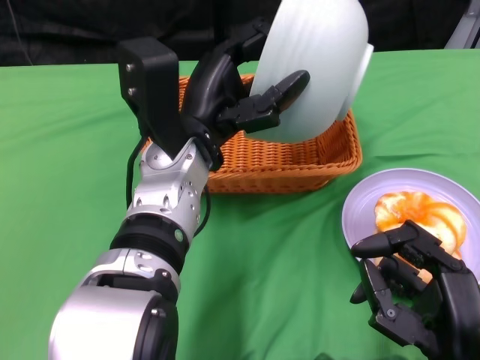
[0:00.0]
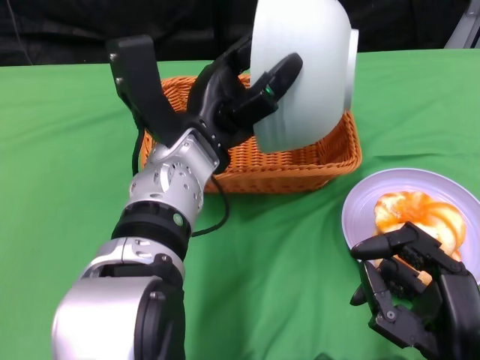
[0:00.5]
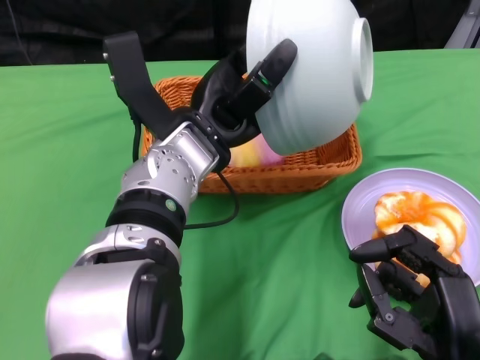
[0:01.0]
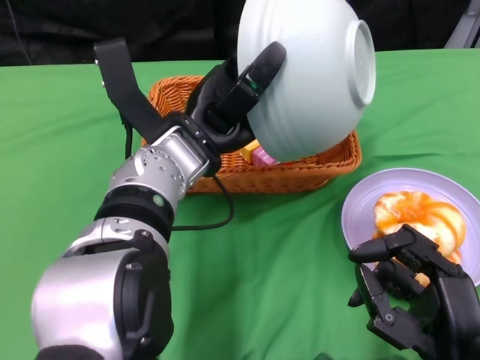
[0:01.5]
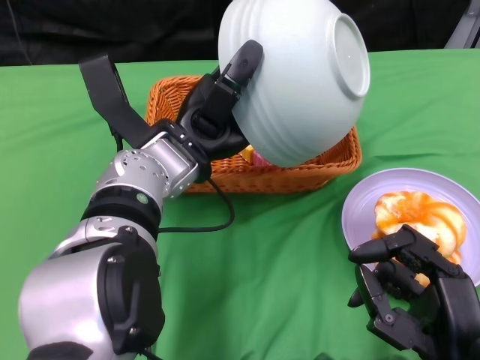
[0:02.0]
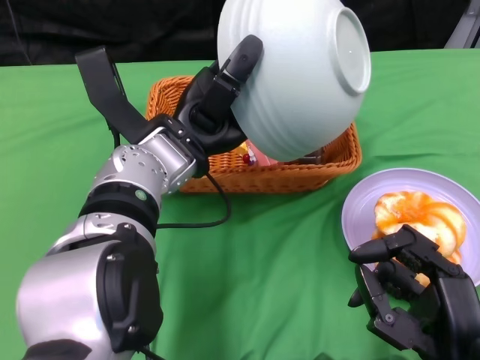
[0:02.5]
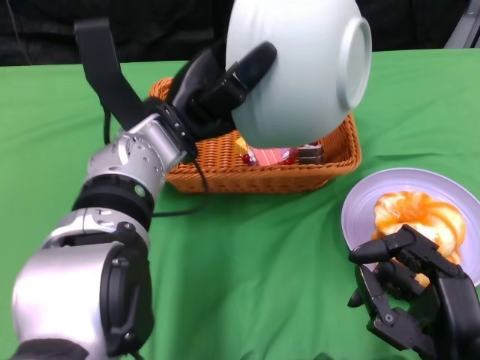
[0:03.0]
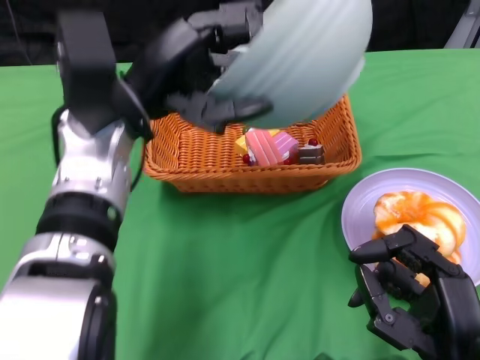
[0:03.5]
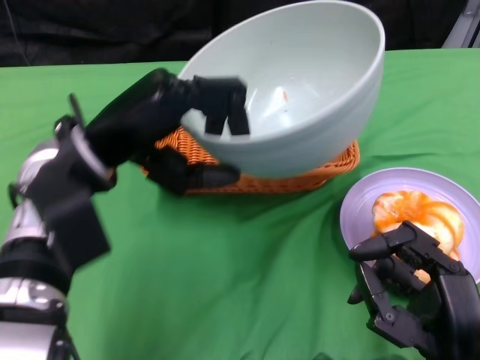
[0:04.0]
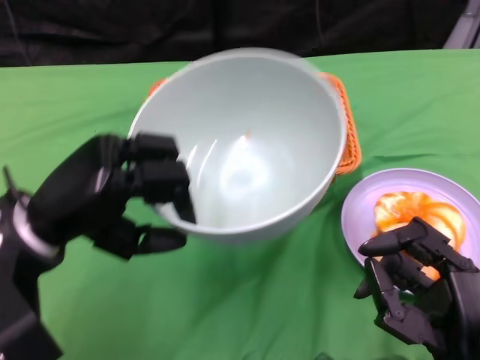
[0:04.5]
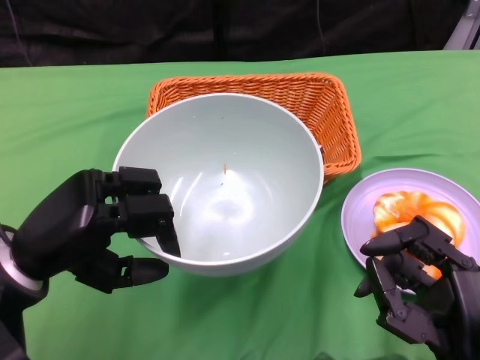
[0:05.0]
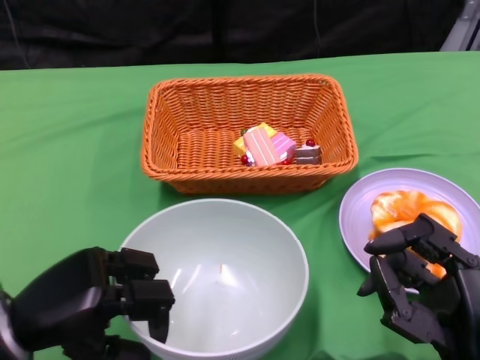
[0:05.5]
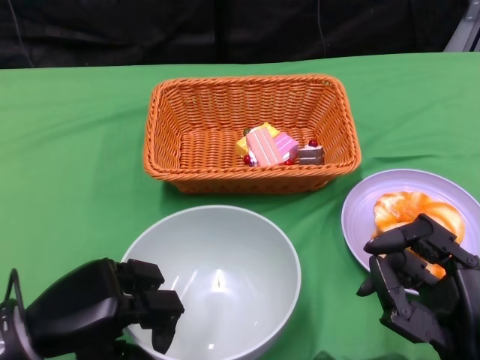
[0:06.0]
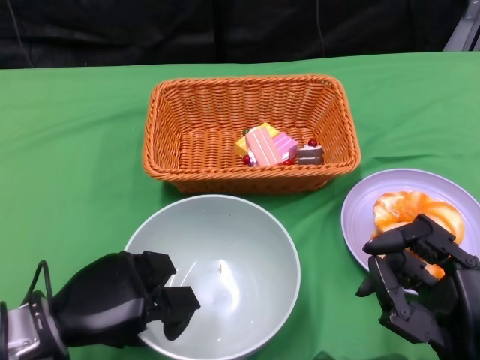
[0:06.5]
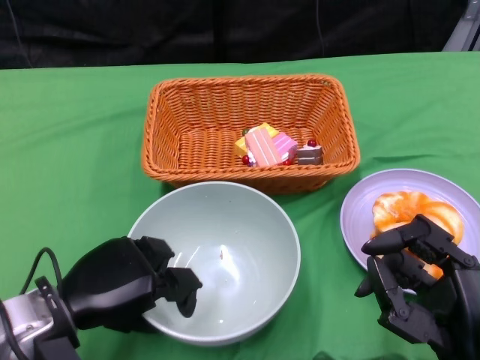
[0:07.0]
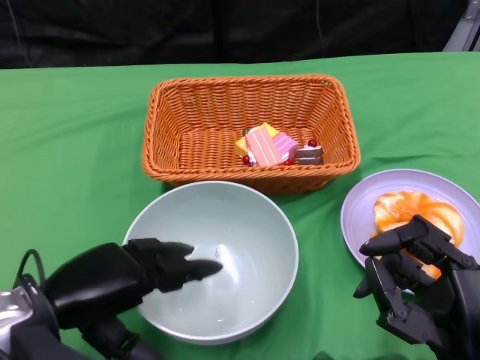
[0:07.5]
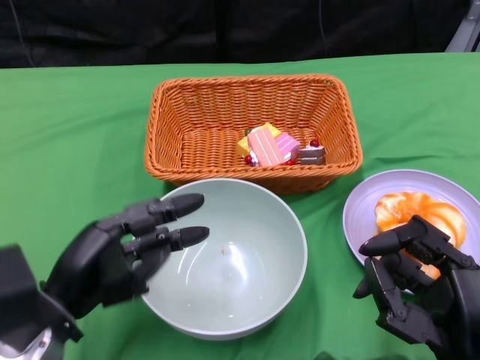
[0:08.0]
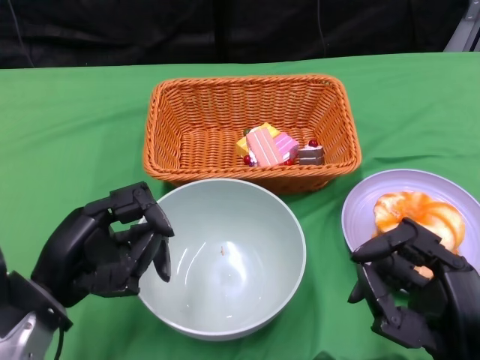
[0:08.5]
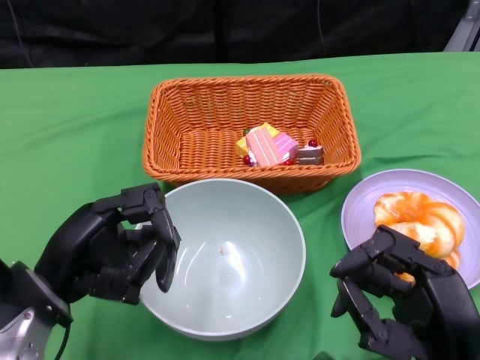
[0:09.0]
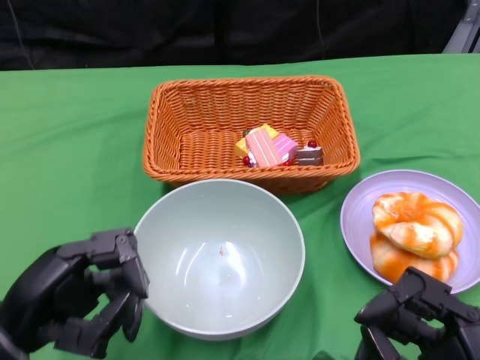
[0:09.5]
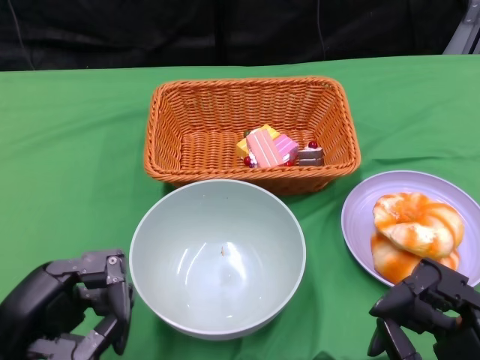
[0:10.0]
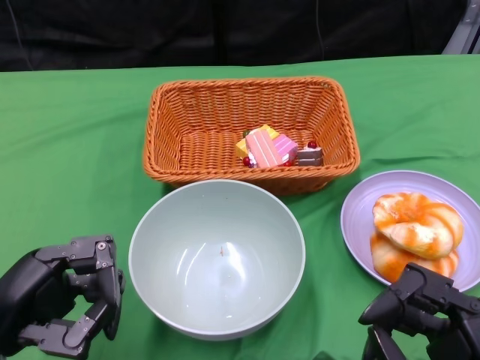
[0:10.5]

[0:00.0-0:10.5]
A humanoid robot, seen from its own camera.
Step, 0:00.0 to 0:03.0: Pour the cake into the basket with the left gripper.
Step, 0:04.0 to 0:08.0: Place the bowl on the table with the left gripper.
0:02.0 to 0:04.0: The left hand is displaced to the left by approximately 10 cm.
0:04.0 to 0:06.5: The left hand is displaced downward and backward by some 15 cm.
0:08.5 to 0:10.5: The left hand shifts by some 5 cm.

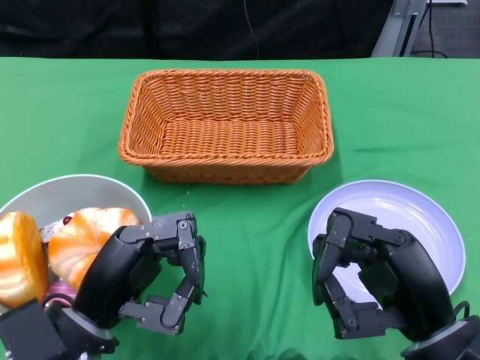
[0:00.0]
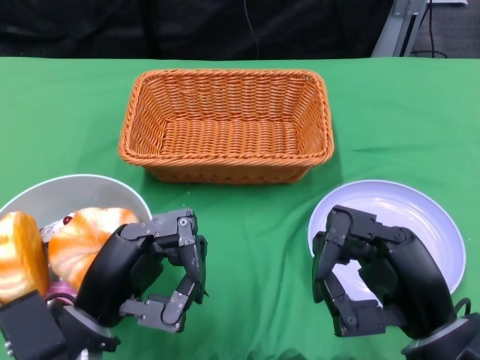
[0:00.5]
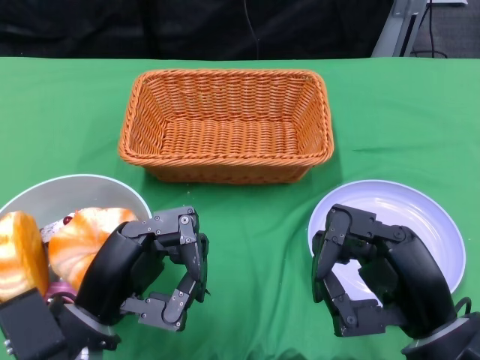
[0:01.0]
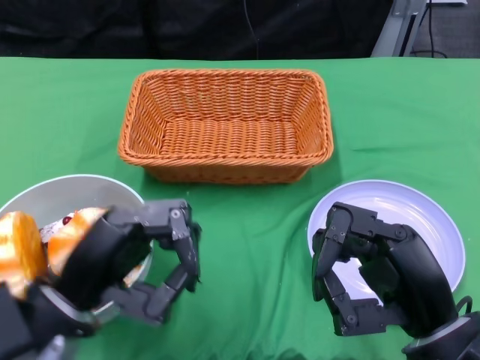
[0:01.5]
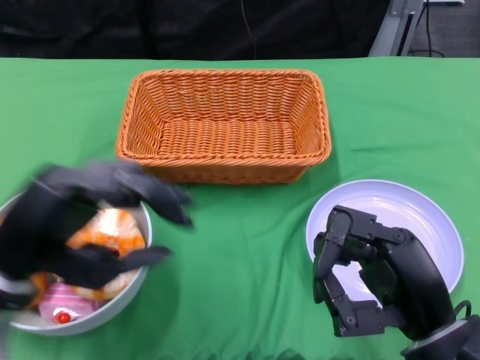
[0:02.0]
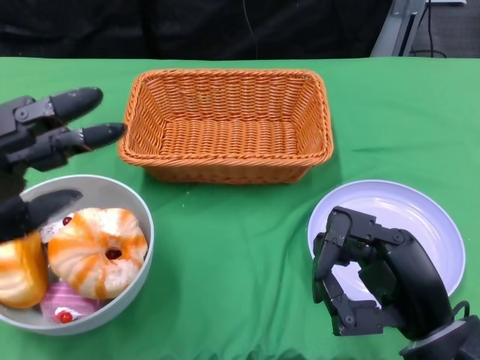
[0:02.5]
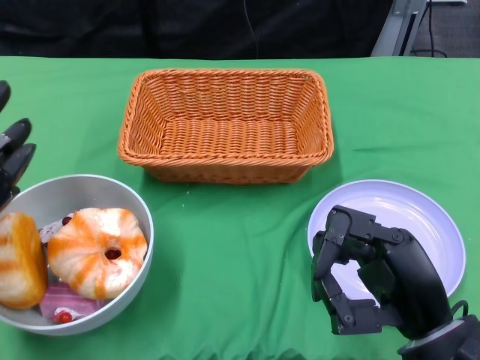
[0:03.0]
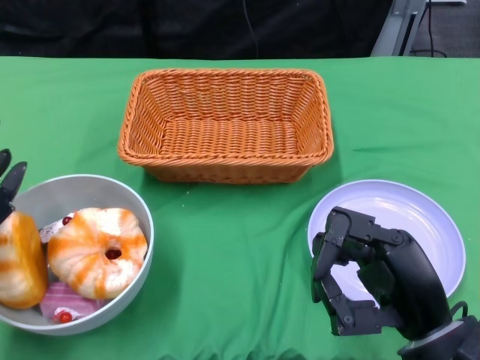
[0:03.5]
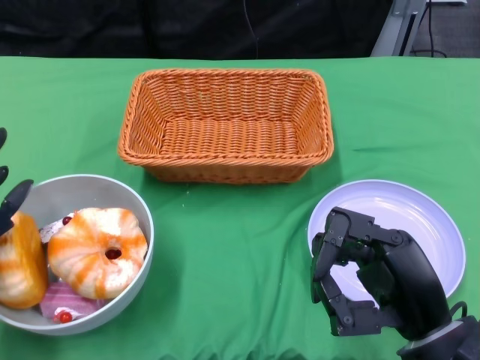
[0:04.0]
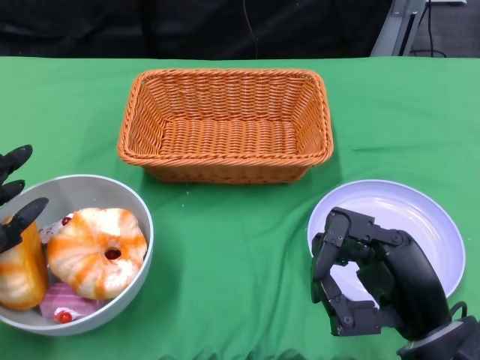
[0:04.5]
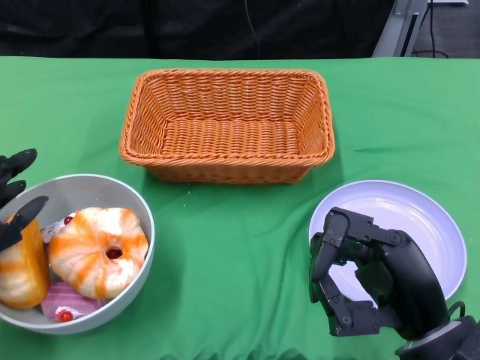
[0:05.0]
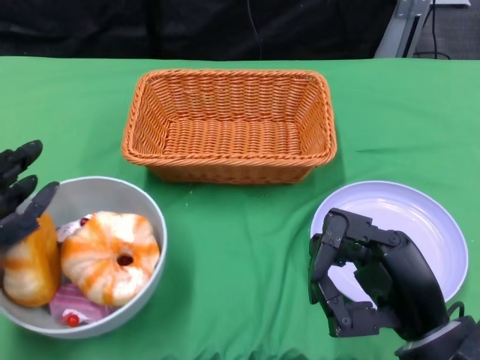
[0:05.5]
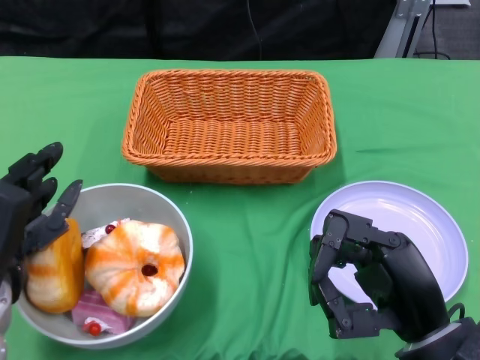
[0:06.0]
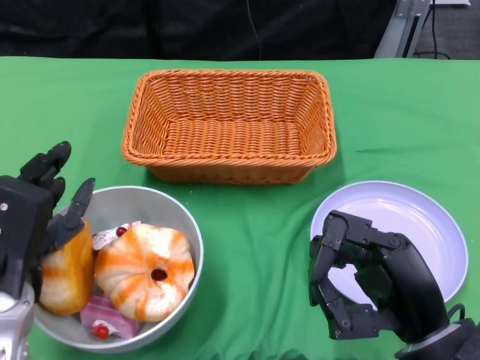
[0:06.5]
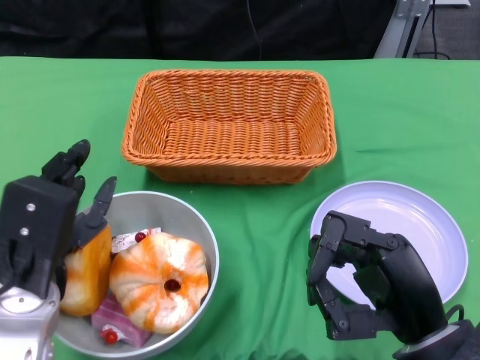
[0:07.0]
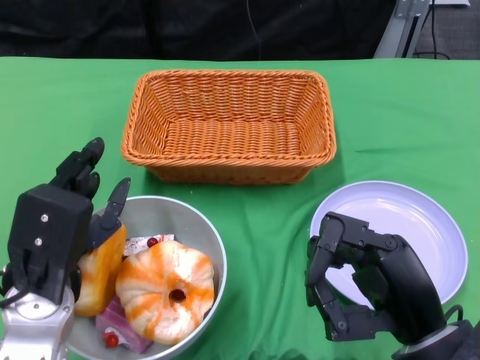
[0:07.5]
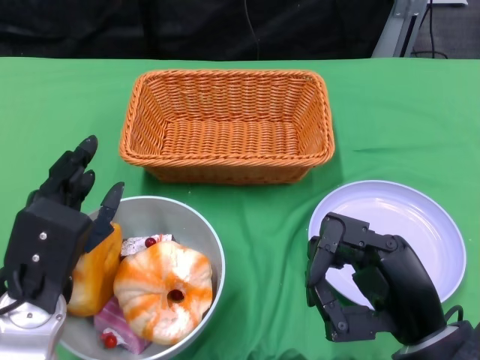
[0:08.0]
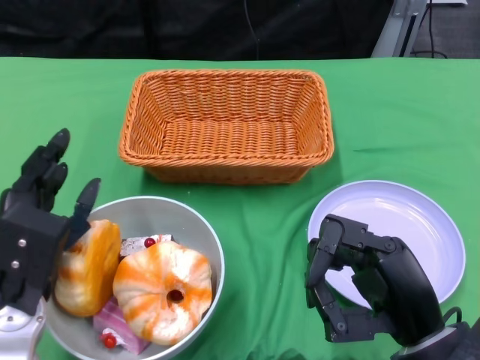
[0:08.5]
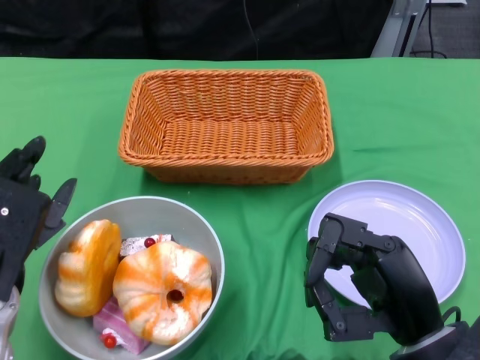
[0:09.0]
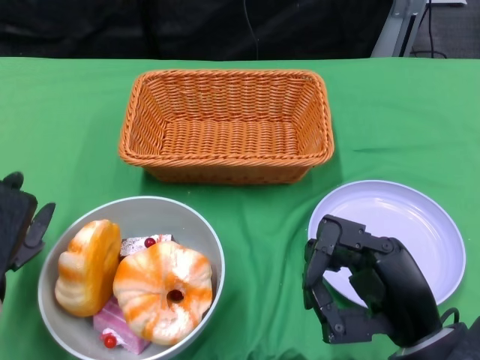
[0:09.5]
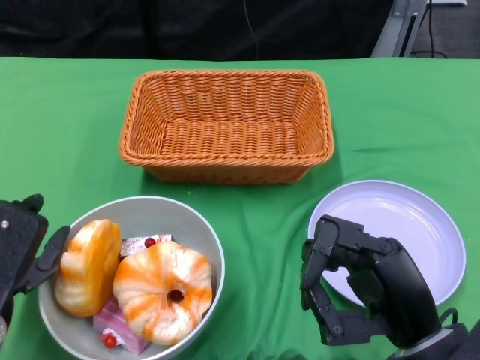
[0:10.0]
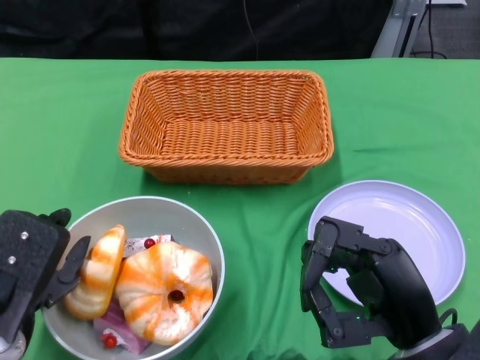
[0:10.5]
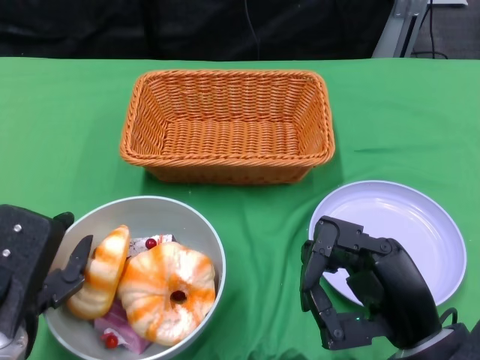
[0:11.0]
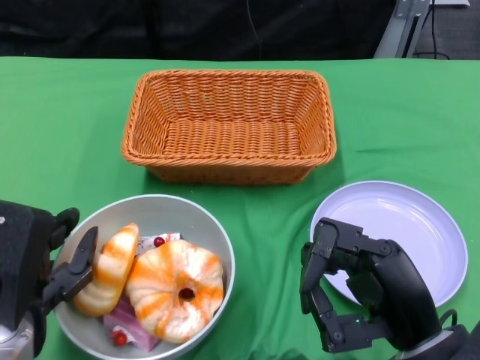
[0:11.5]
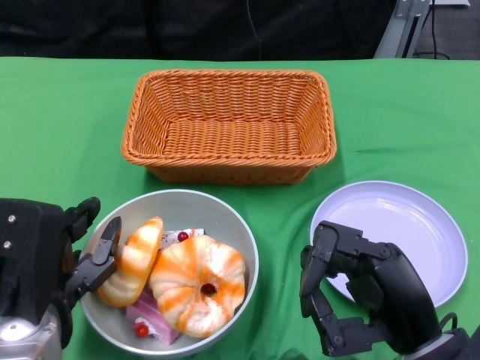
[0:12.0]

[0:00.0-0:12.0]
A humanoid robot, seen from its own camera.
0:02.0 to 0:04.0: The left hand heads downward and to the left, covering some 10 cm.
0:08.0 to 0:10.0: The left hand moves some 5 cm.

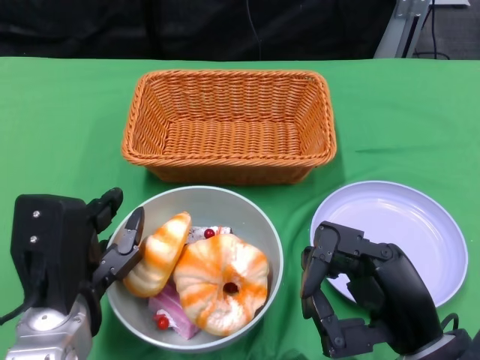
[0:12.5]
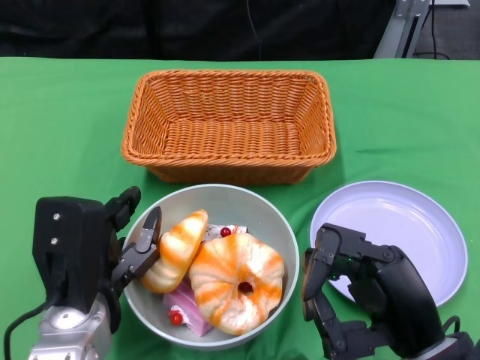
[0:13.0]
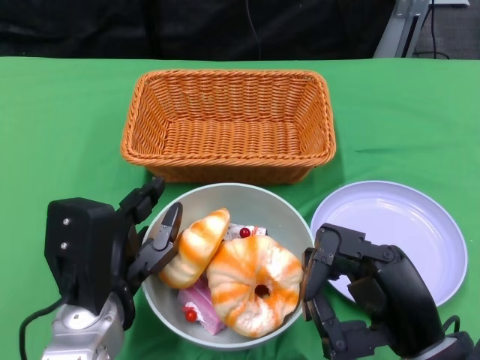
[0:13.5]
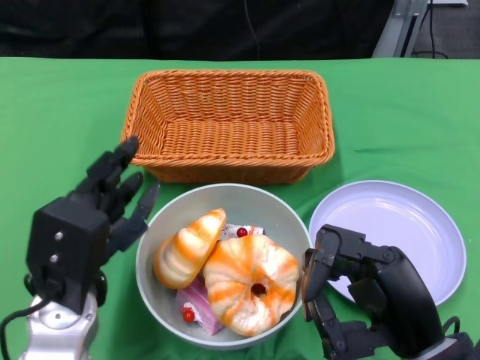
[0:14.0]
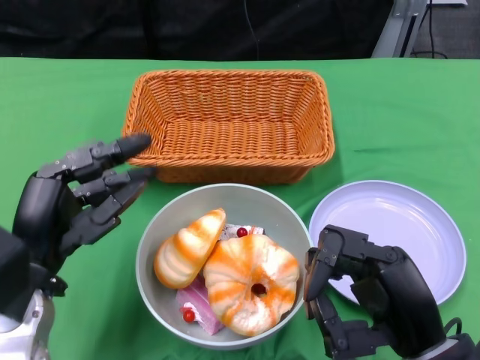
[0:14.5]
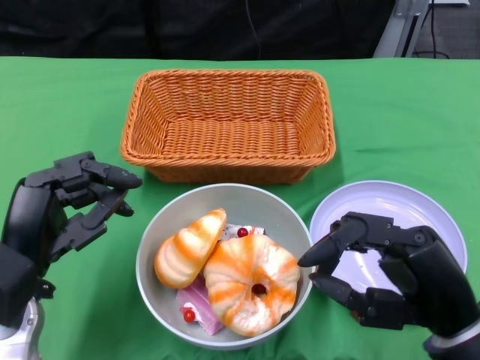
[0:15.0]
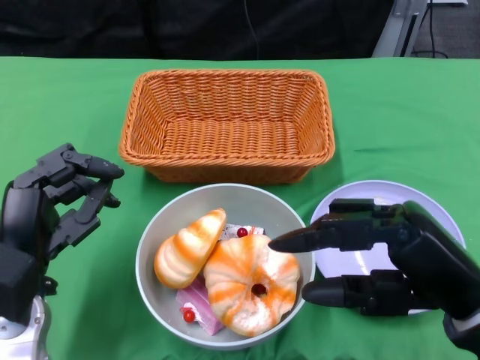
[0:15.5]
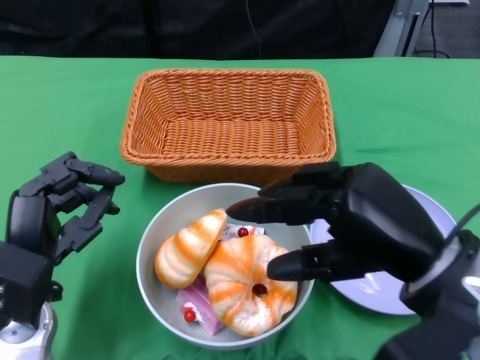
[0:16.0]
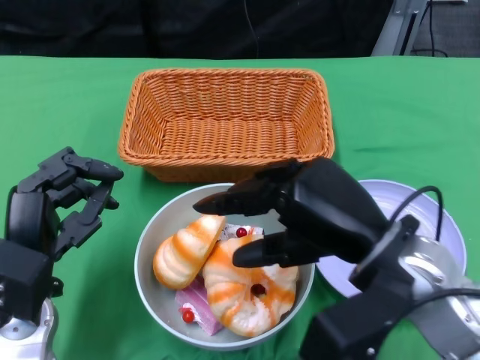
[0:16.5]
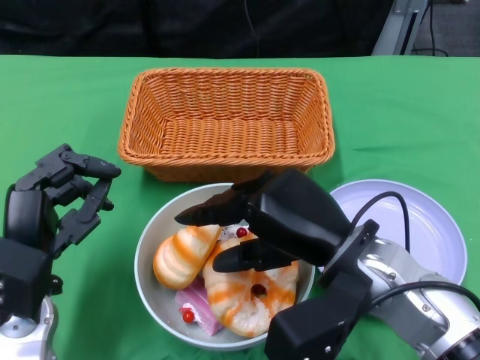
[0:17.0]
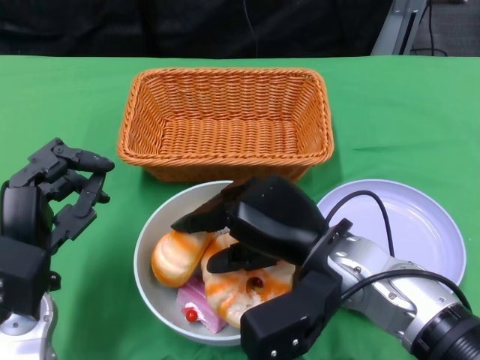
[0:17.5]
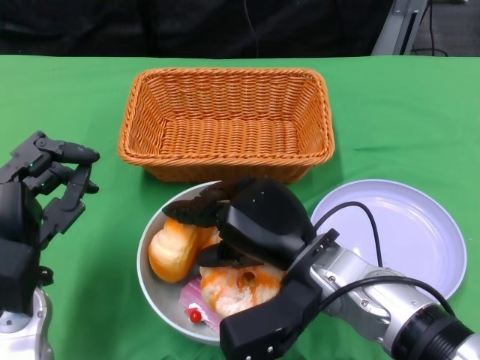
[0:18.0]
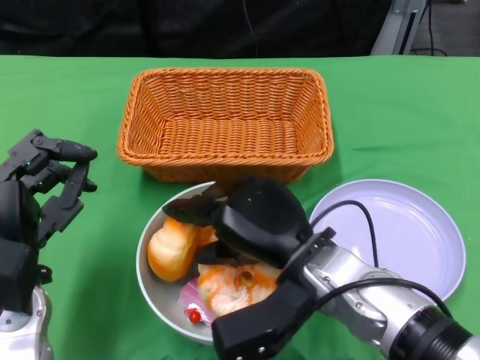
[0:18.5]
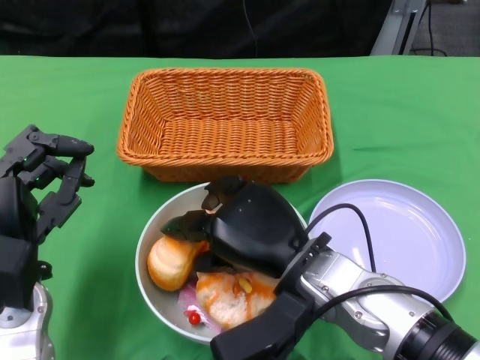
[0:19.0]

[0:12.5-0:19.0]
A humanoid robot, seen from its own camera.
0:14.5 to 0:17.0: The right hand goes about 10 cm forward and to the left.
